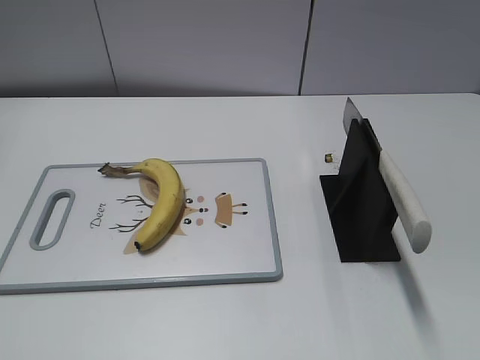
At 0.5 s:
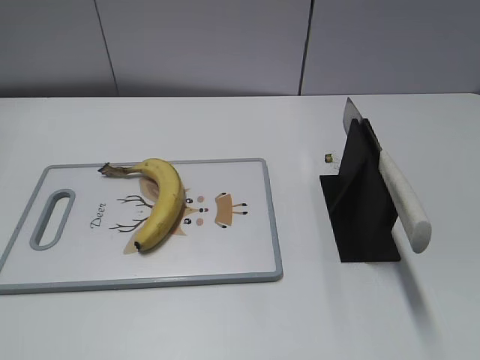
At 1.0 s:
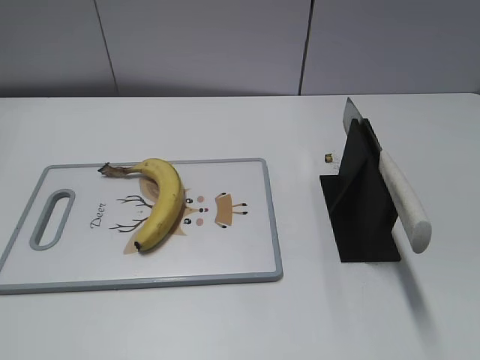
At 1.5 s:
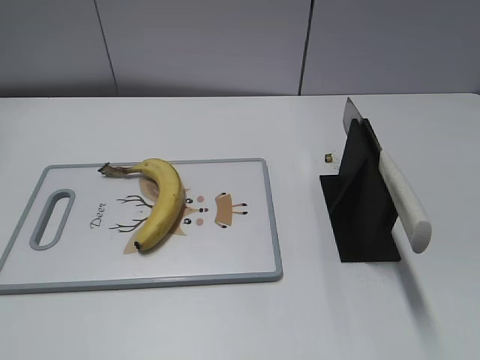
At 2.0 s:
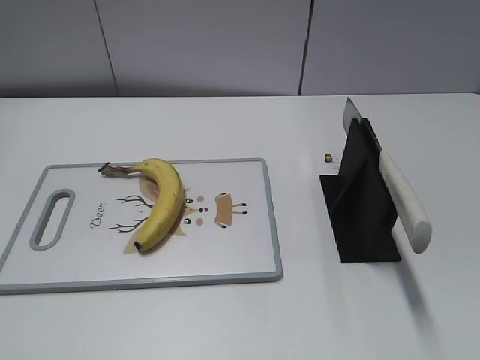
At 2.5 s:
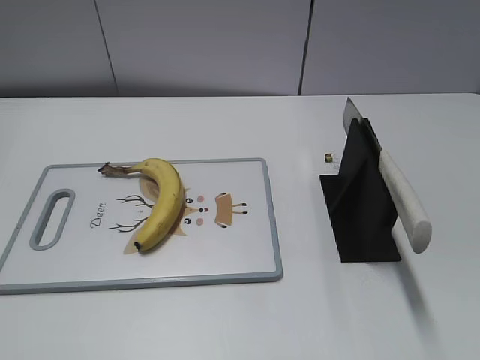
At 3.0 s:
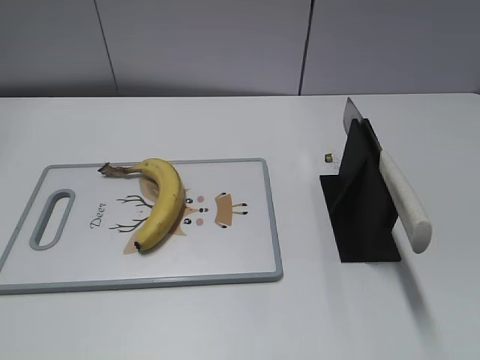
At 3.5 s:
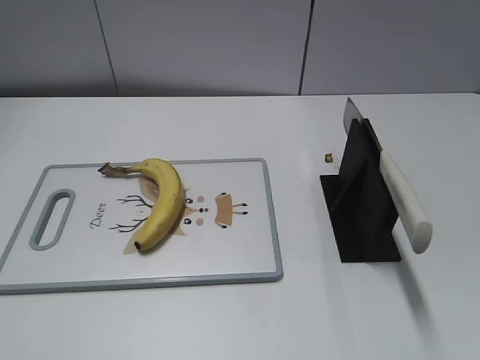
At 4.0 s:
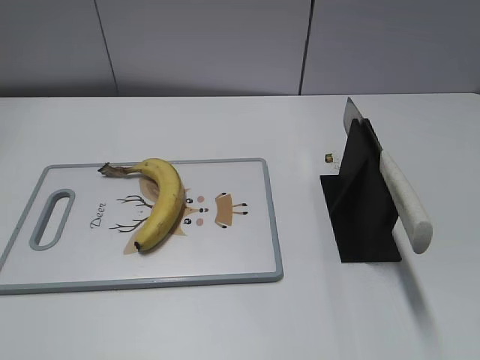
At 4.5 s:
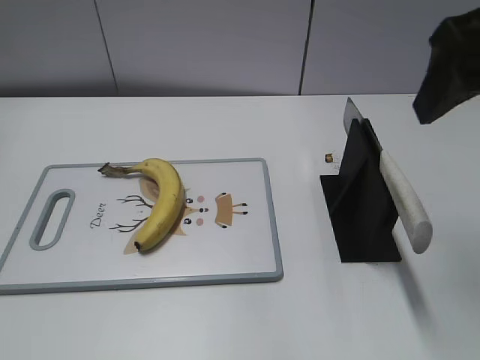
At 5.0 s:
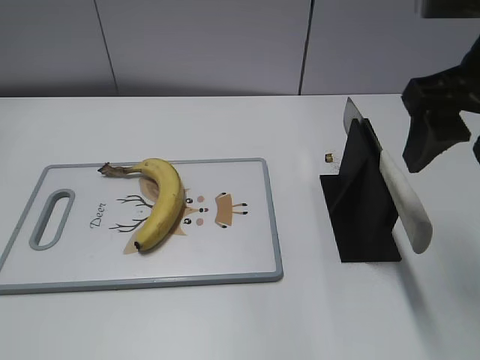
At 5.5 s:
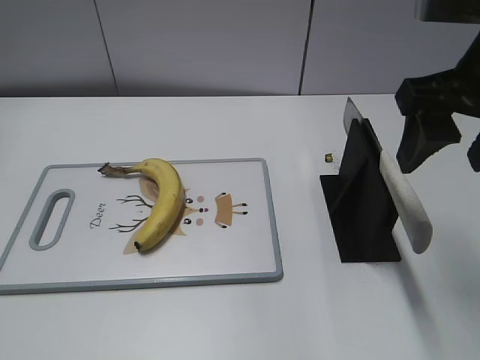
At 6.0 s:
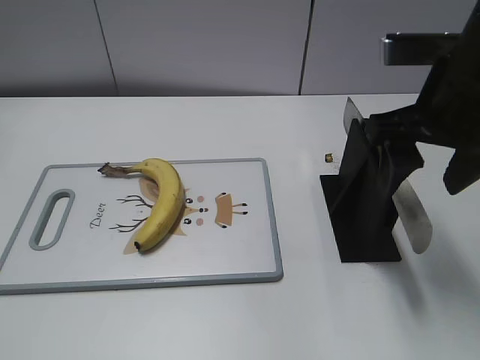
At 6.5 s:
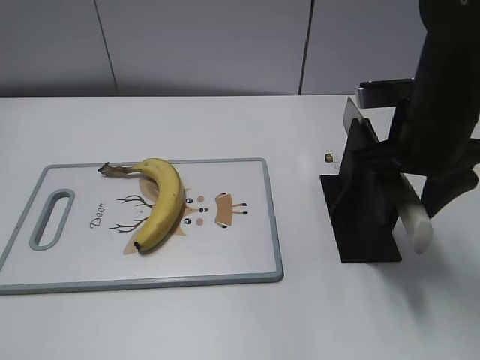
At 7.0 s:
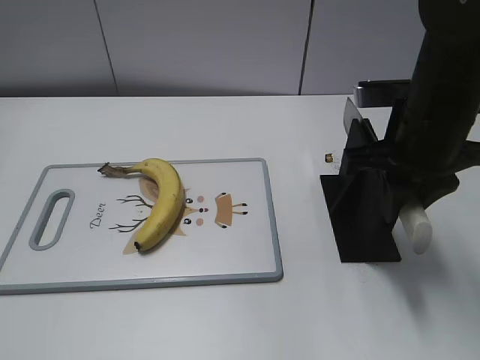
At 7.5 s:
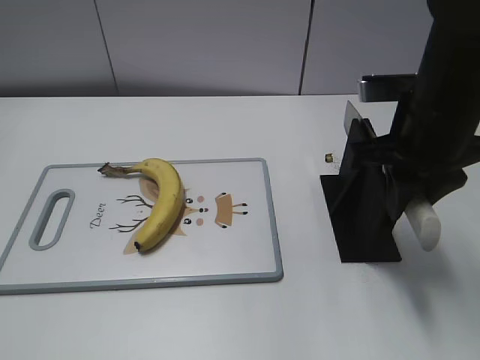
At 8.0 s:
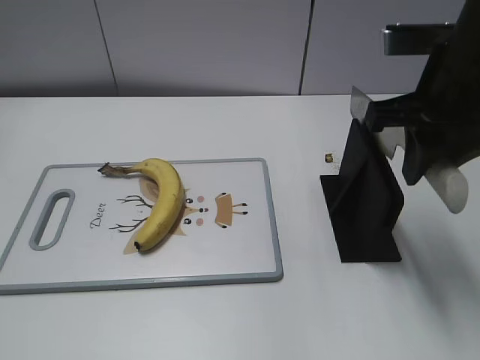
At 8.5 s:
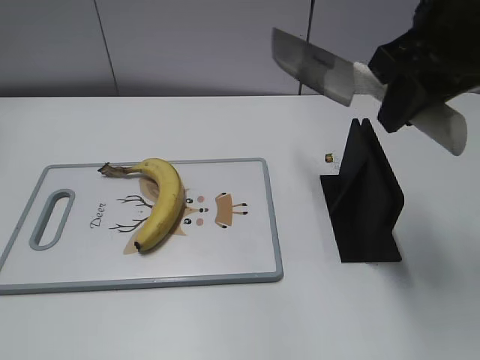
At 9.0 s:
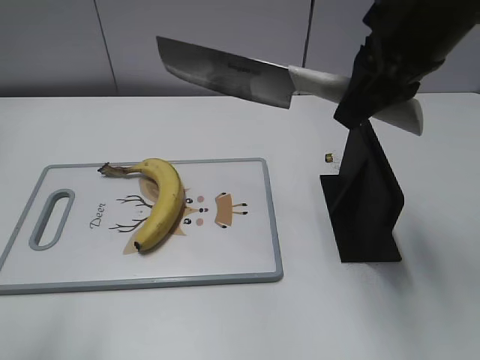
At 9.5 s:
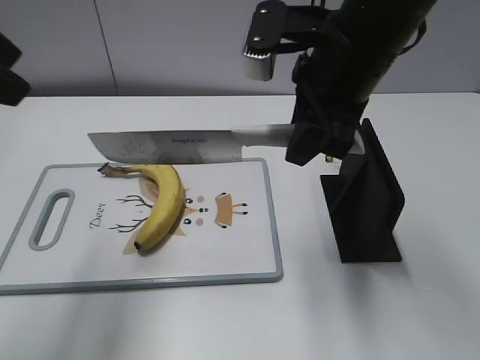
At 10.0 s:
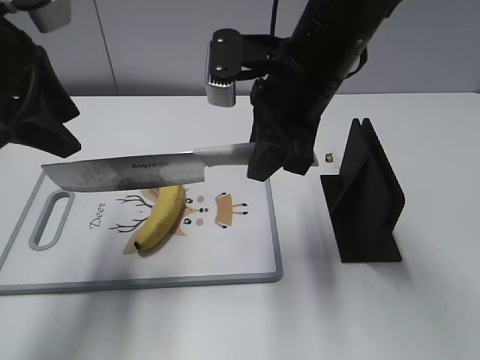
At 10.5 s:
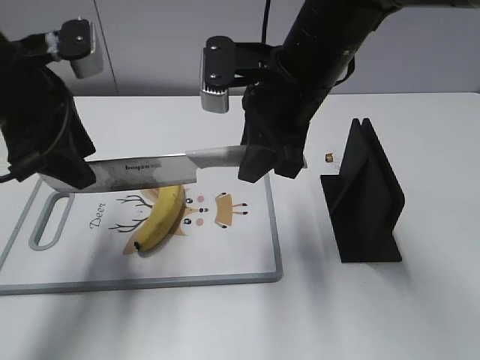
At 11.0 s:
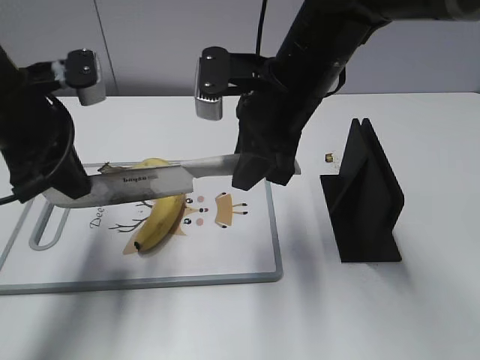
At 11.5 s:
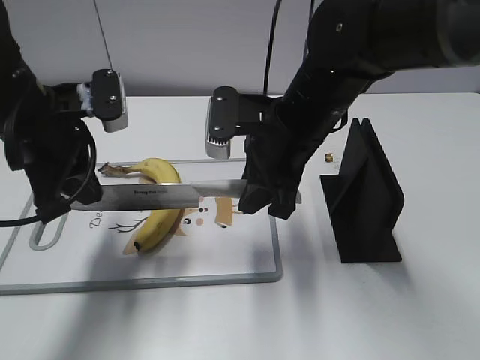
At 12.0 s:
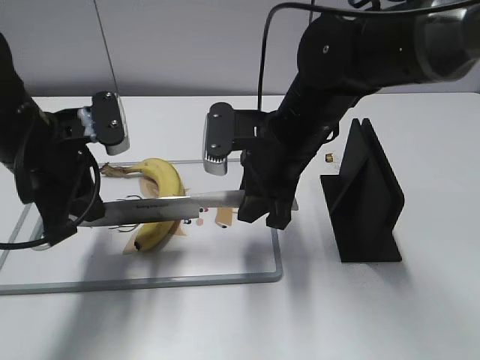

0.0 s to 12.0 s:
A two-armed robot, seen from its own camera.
Task of the whole recording: cut banana.
Step, 0.0 to 8.0 s: Grab the knife handle with your right hand.
4.0 to 6.0 s: The right gripper moves forward, downward and to the left, about 15 cm.
6.0 to 8.0 s: The right gripper closes its fingers.
8.0 to 10.0 s: The left gripper is displaced forward by approximately 30 cm, while the right gripper is displaced to the left by some 10 cm.
10.0 to 12.0 s: The grippers both shift downward by about 10 cm. The left gripper closes up.

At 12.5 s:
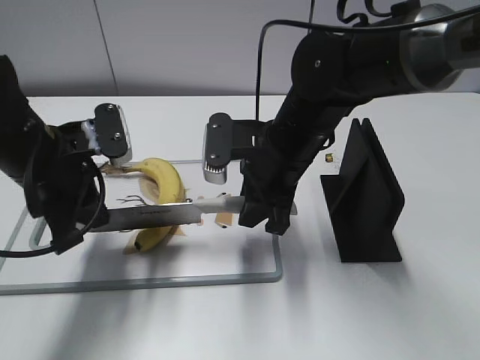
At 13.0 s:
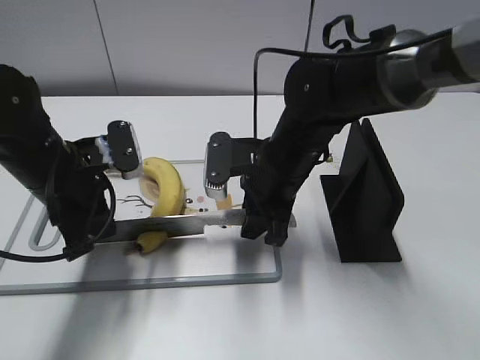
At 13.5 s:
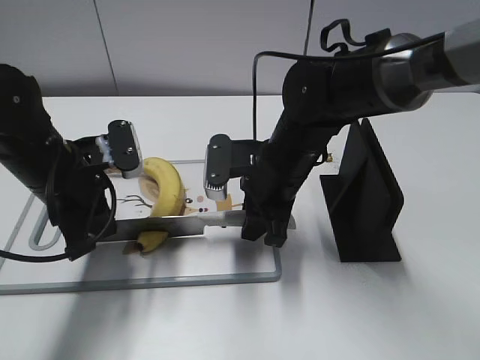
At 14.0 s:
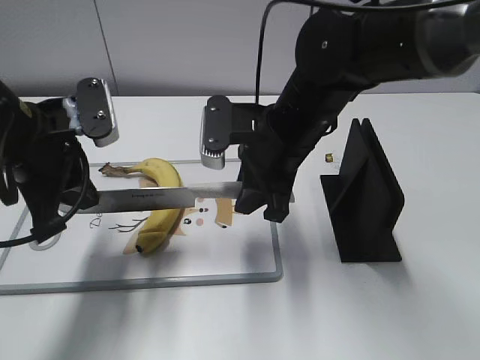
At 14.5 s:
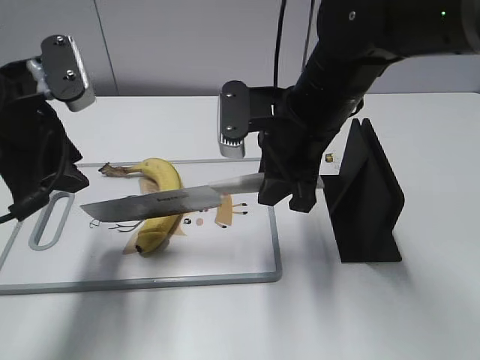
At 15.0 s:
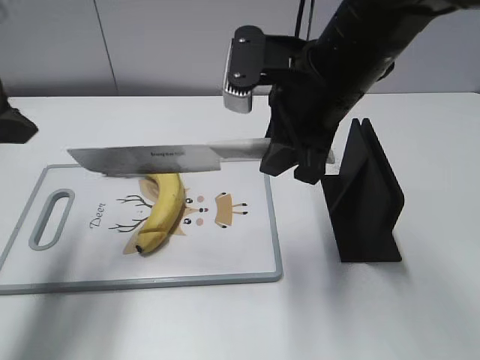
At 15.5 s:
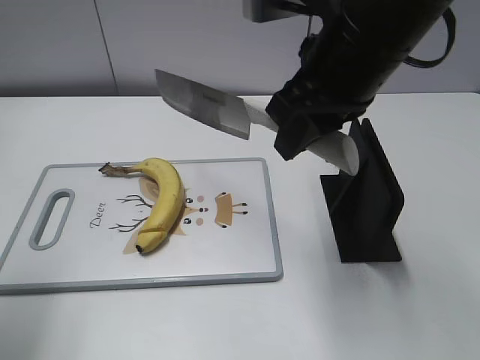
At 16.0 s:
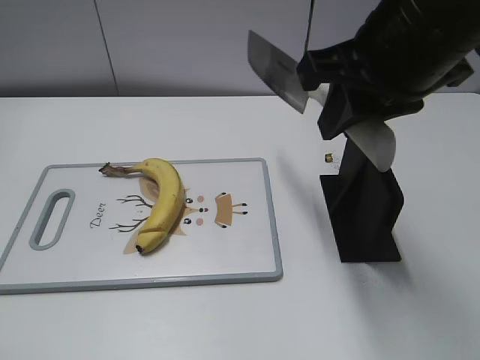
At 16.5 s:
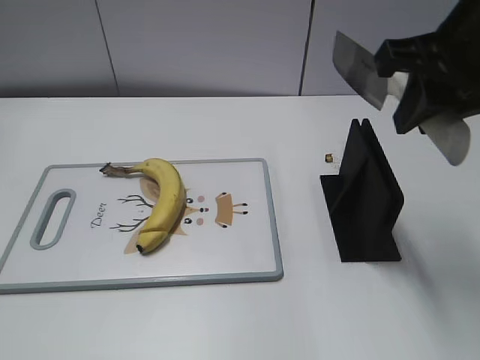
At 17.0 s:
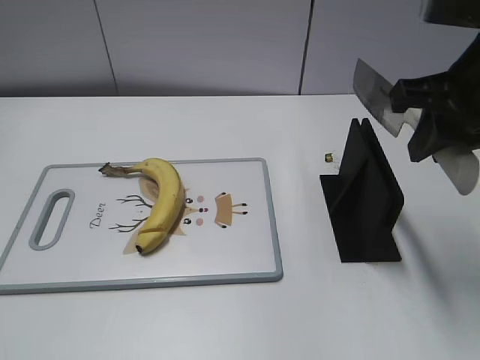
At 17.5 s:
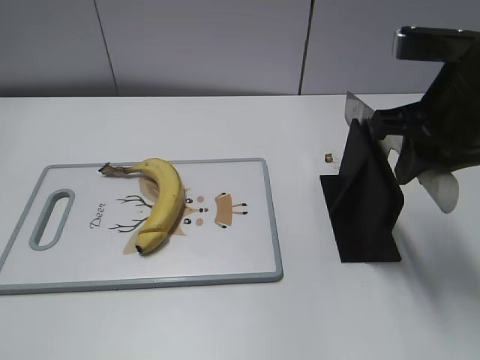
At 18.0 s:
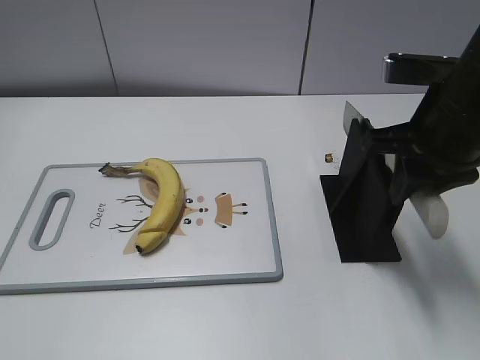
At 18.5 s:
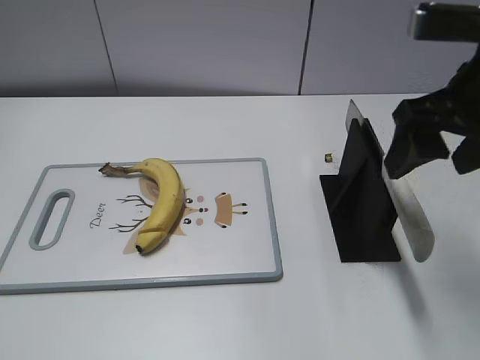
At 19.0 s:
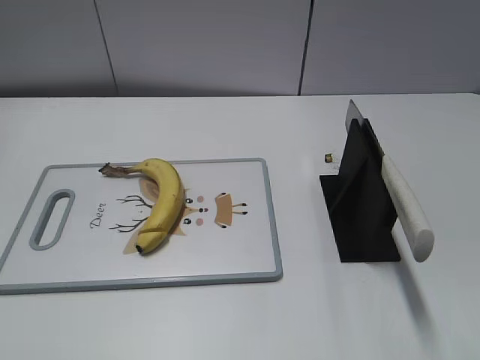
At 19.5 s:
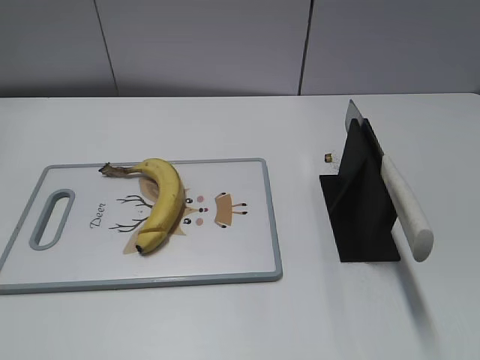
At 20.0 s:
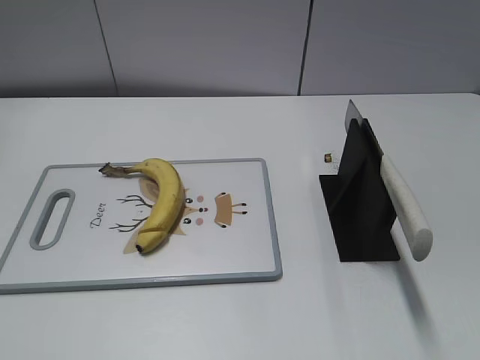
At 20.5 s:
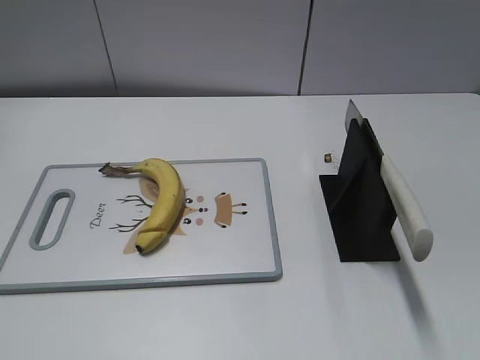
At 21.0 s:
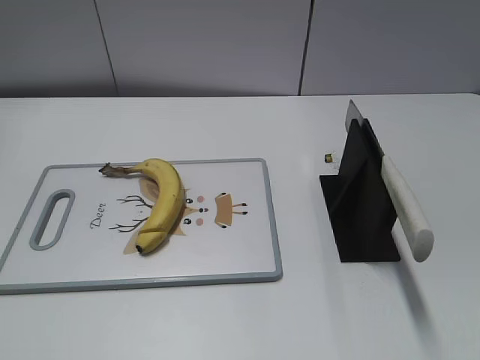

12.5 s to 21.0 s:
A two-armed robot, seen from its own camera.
Task of the whole recording: cut banana.
Step, 14.0 to 16.5 s: Cut the banana with your right hand.
Step, 17.0 to 17.5 s: Lift the knife with your right hand.
Step, 18.0 to 21.0 s: Place the knife on the storage rack with your right hand.
12.5 to 14.5 s: Both grippers travel together upward, about 5 cm. The left gripper opens.
14.5 to 16.5 s: The right gripper is displaced upward, to the right and backward by about 15 cm. Meanwhile the left gripper moves backward, roughly 25 cm.
16.5 to 19.0 s: The right gripper goes approximately 15 cm backward and to the right, and opens its fingers.

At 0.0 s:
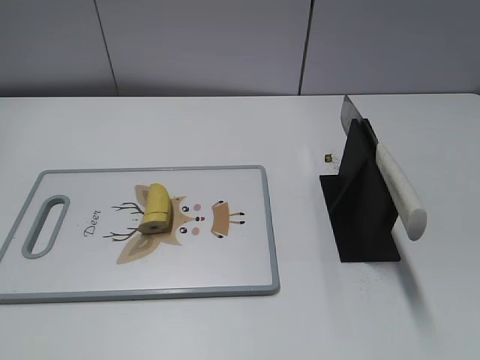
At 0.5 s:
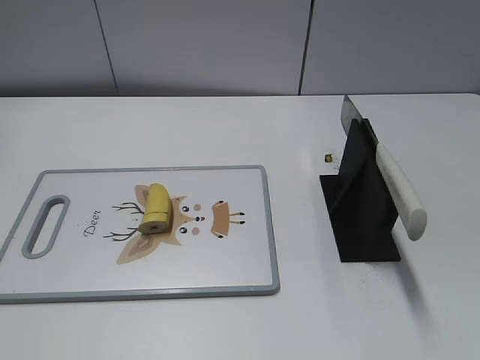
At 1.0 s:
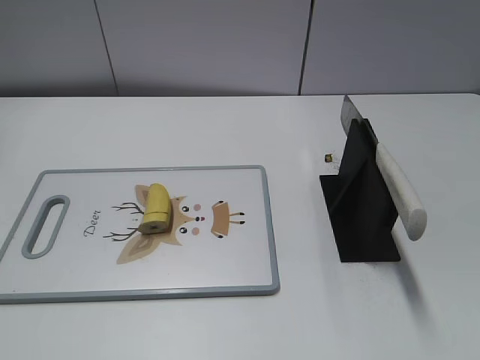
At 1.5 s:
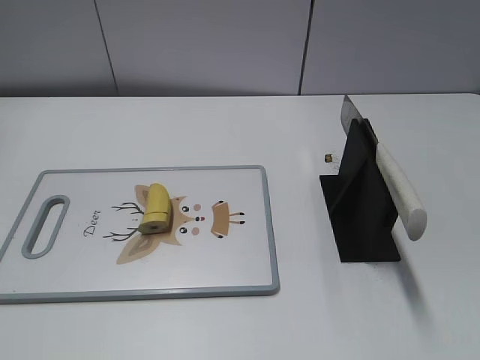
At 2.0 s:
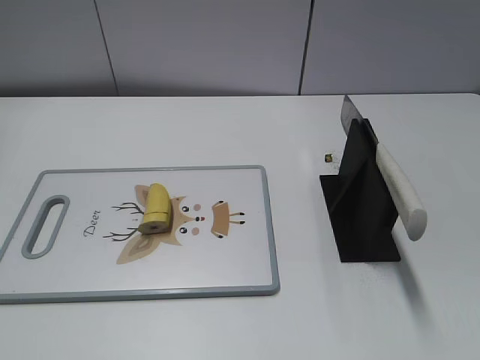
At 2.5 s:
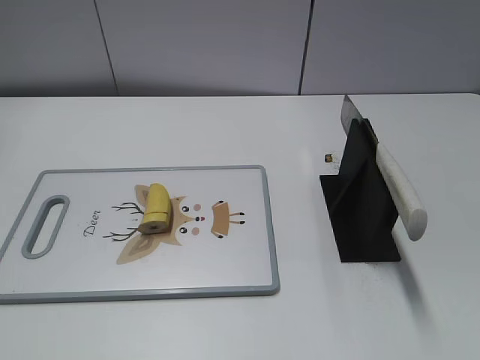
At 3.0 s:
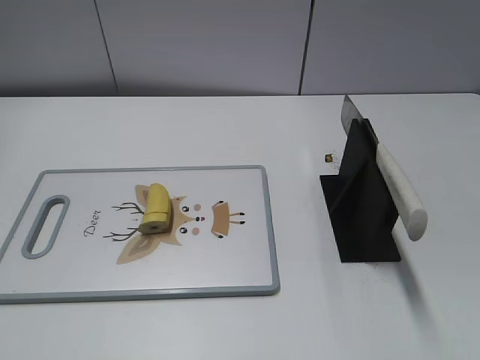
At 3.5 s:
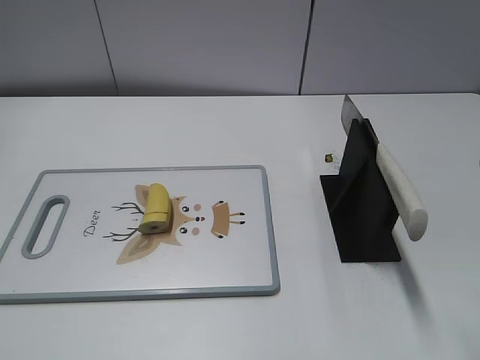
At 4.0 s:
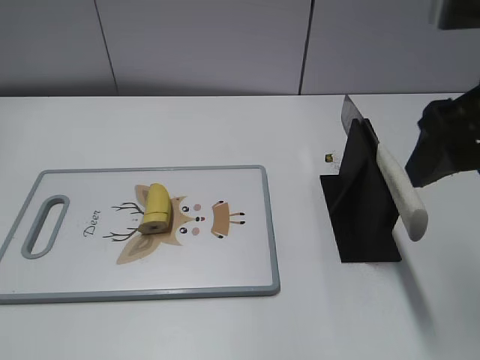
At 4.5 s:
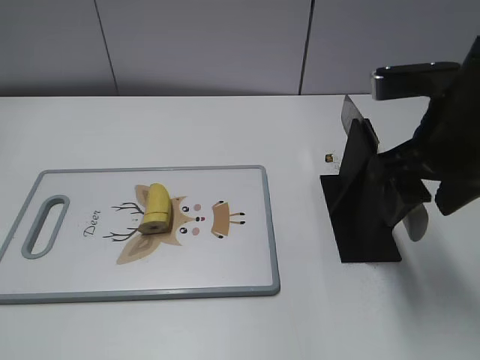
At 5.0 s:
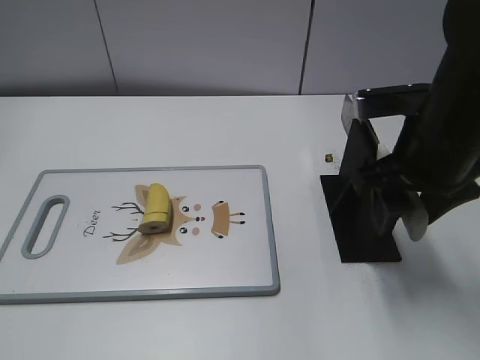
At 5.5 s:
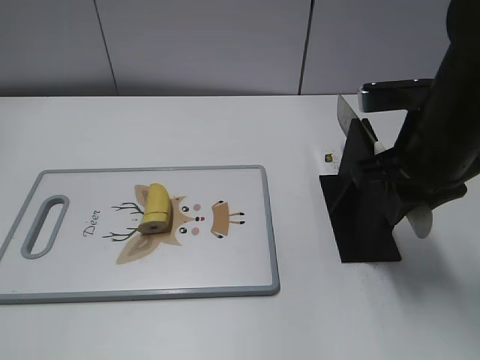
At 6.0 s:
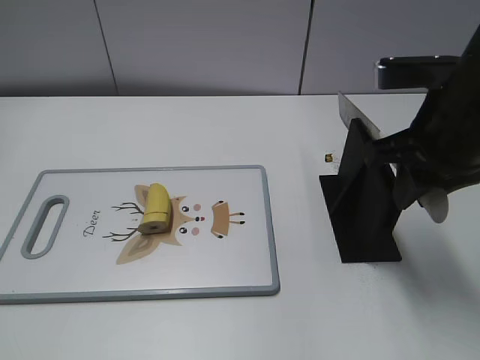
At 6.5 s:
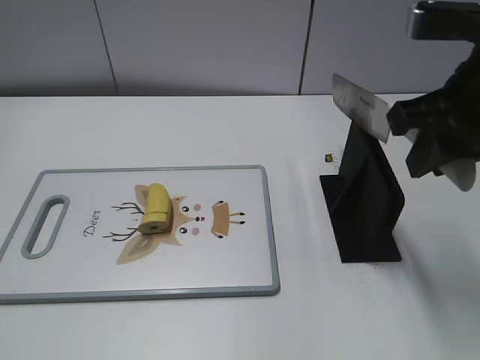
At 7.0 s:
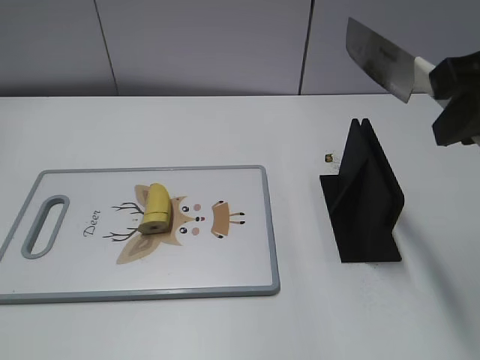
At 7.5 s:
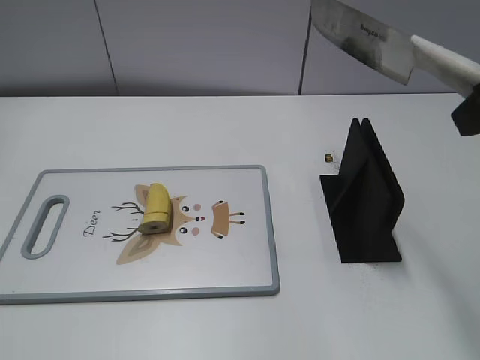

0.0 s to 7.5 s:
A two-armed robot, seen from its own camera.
Task of the whole recording: cut banana.
Step, 0.0 to 6.5 s: Grab the knife handle with your right hand.
2.0 to 4.0 s: The right gripper travels forward and to the left by approximately 25 cm.
4.0 to 5.5 s: The right gripper is displaced downward and forward by about 10 cm, and closes its fingers.
5.5 to 7.5 s: The right gripper goes about 15 cm upward and backward.
